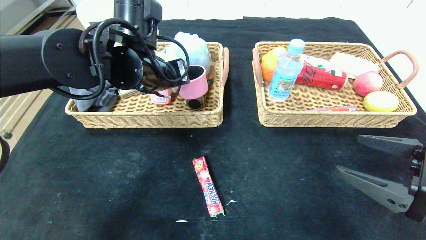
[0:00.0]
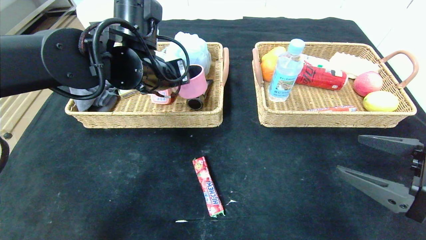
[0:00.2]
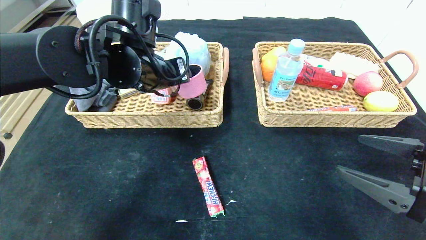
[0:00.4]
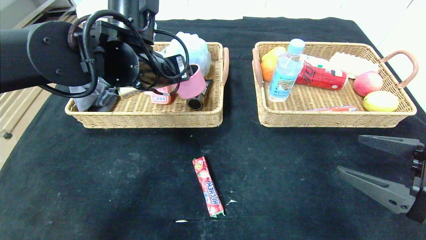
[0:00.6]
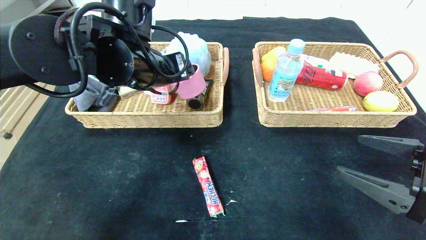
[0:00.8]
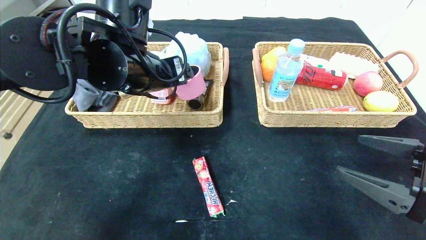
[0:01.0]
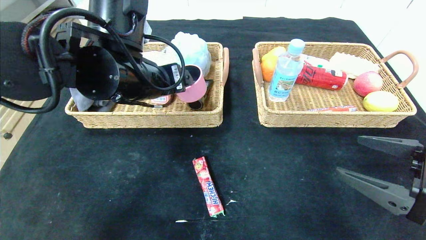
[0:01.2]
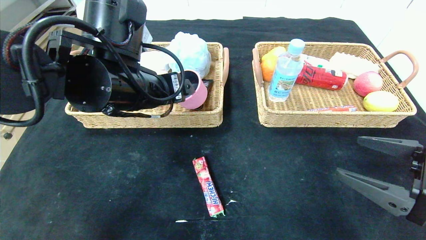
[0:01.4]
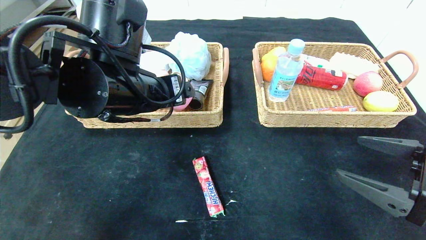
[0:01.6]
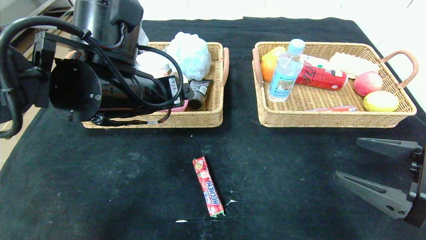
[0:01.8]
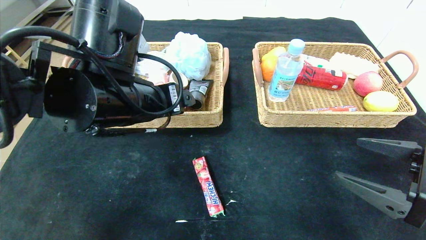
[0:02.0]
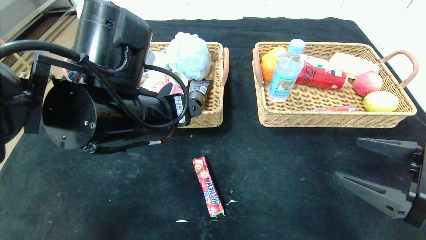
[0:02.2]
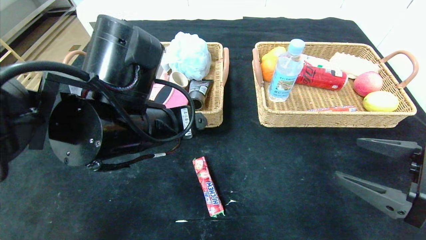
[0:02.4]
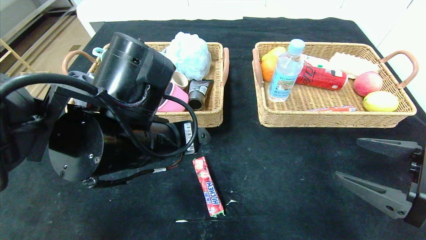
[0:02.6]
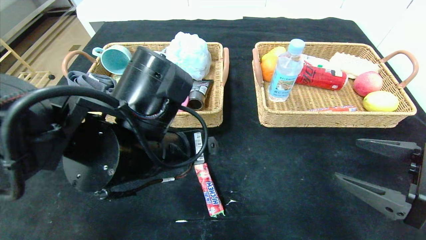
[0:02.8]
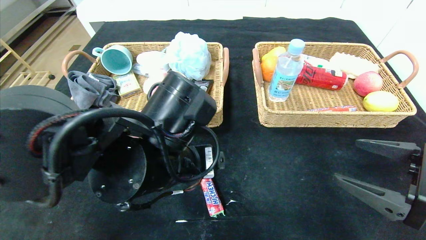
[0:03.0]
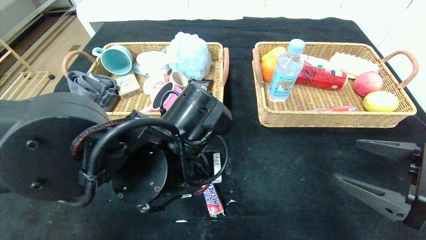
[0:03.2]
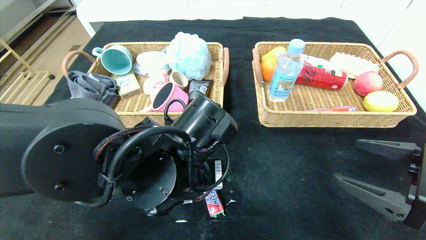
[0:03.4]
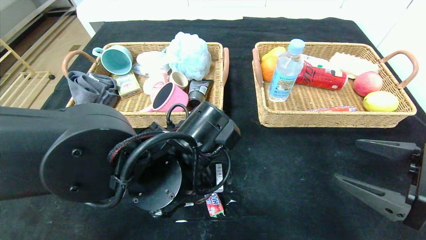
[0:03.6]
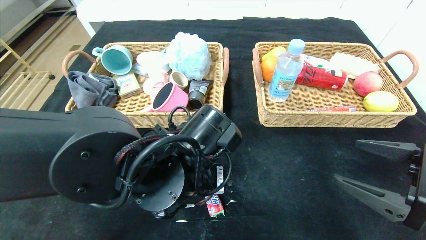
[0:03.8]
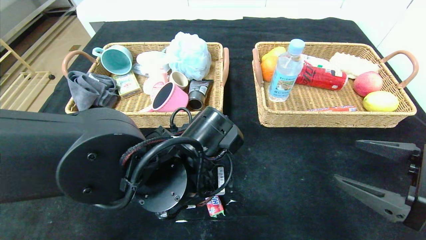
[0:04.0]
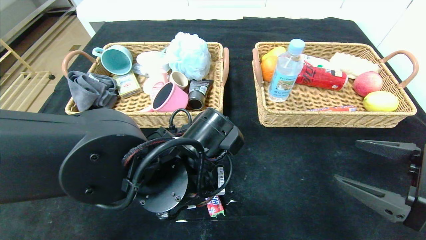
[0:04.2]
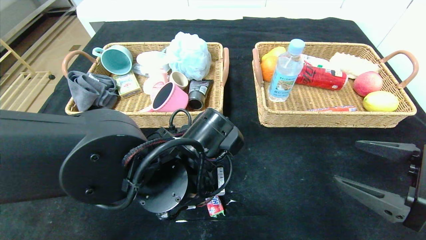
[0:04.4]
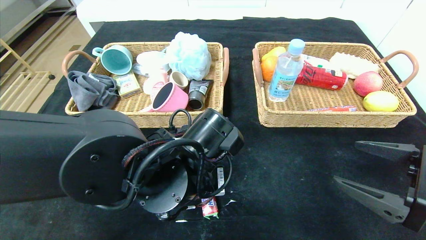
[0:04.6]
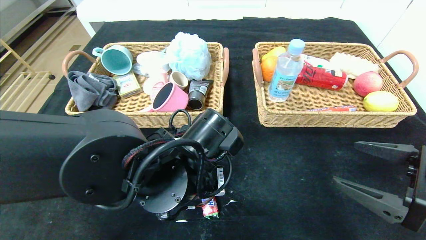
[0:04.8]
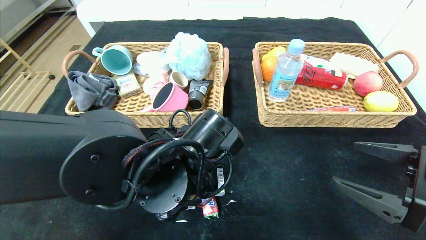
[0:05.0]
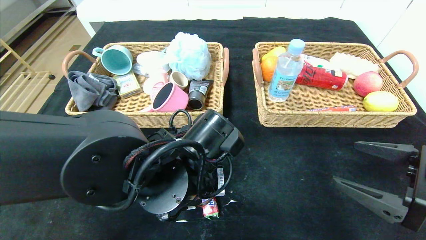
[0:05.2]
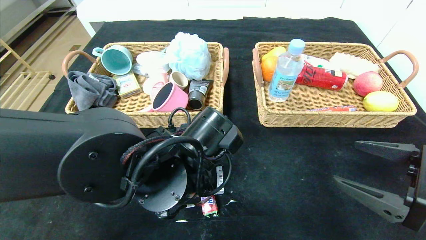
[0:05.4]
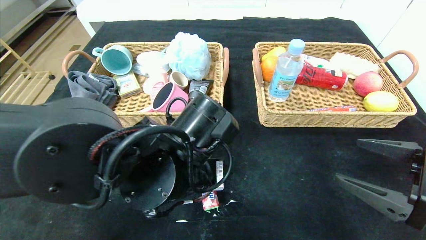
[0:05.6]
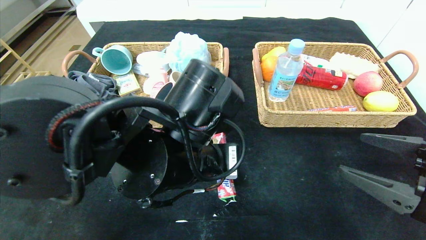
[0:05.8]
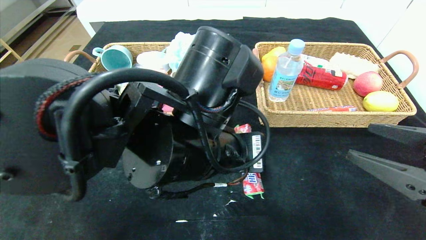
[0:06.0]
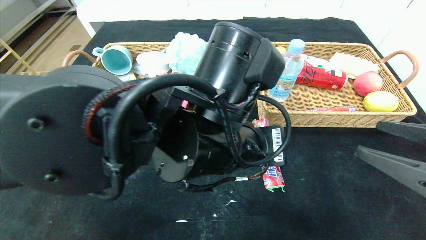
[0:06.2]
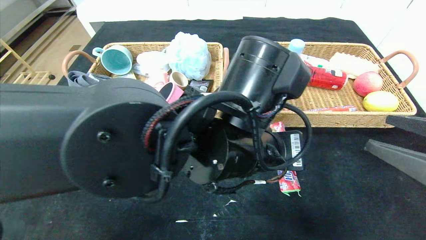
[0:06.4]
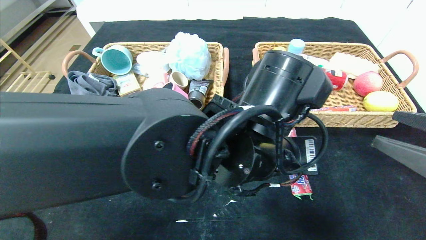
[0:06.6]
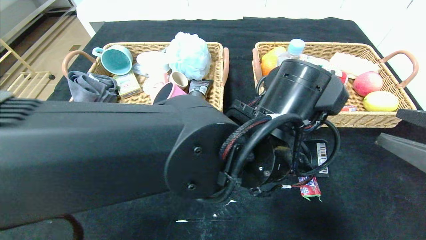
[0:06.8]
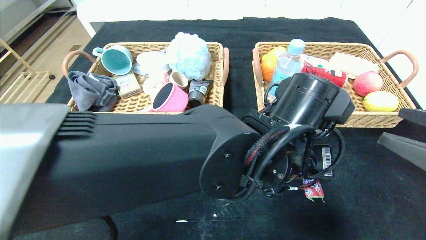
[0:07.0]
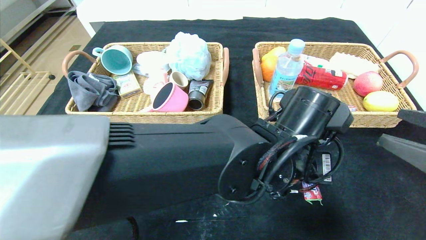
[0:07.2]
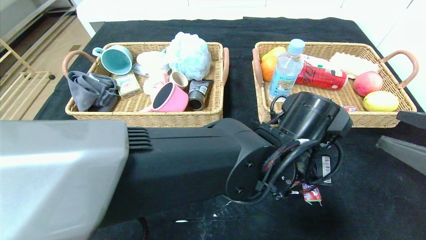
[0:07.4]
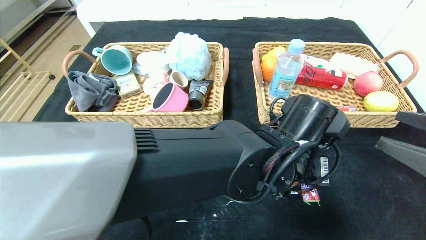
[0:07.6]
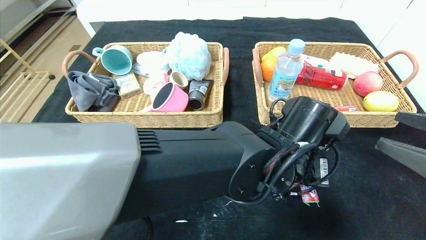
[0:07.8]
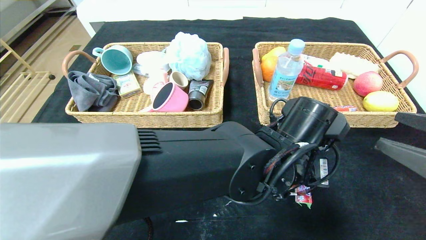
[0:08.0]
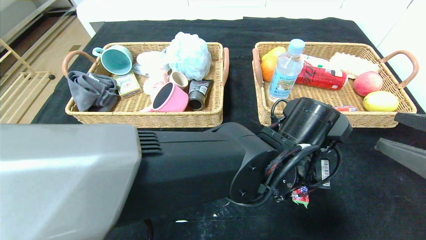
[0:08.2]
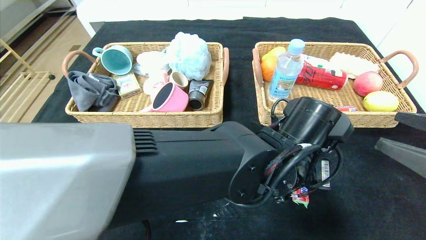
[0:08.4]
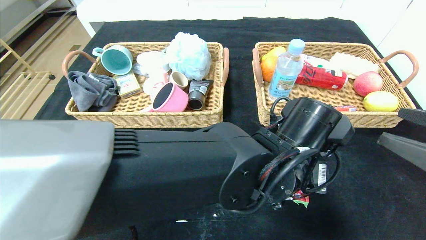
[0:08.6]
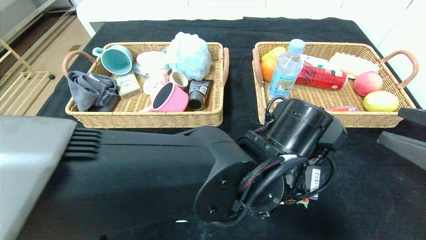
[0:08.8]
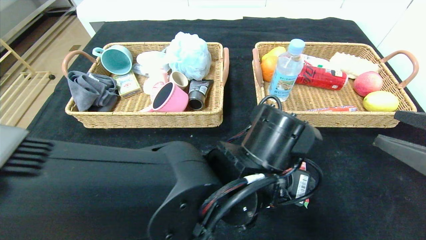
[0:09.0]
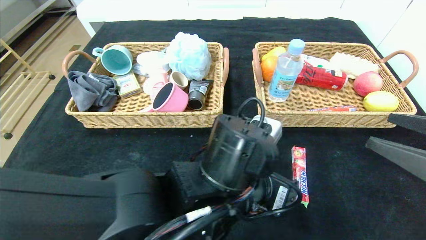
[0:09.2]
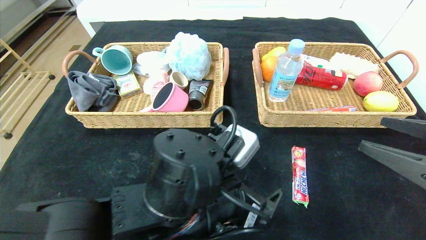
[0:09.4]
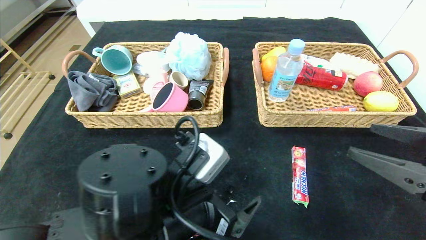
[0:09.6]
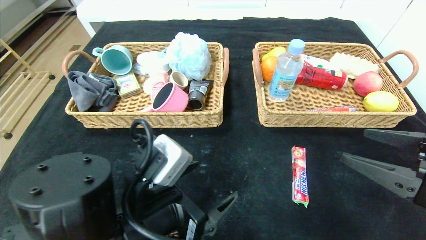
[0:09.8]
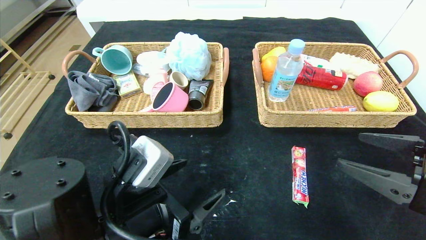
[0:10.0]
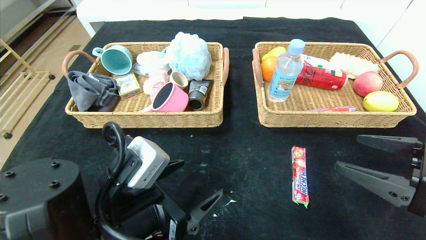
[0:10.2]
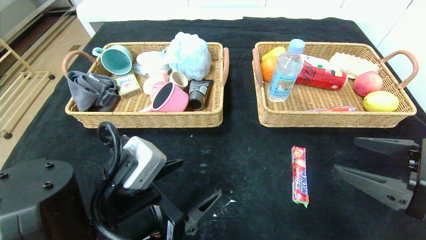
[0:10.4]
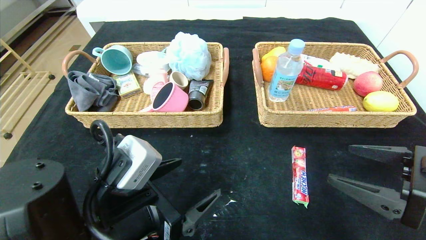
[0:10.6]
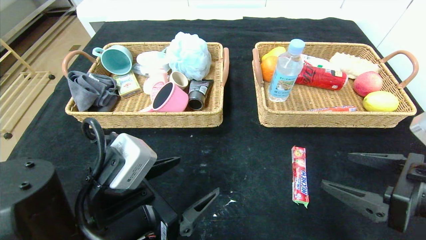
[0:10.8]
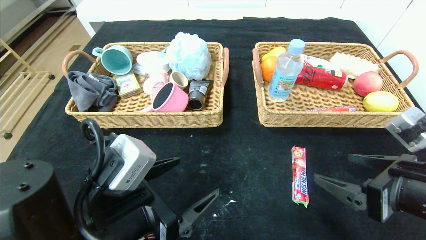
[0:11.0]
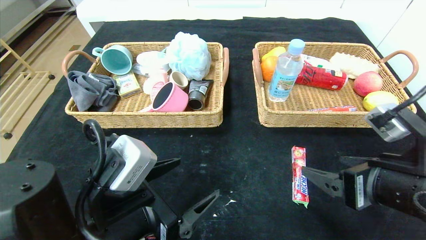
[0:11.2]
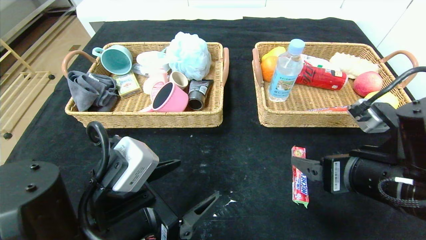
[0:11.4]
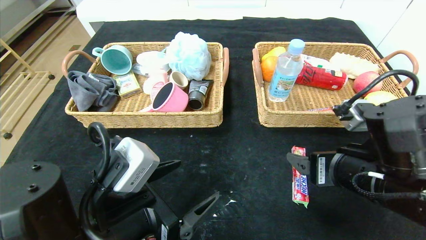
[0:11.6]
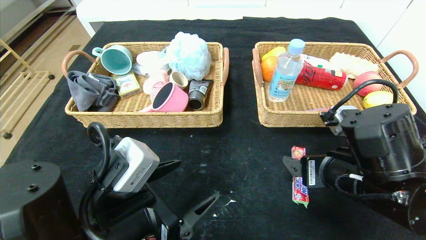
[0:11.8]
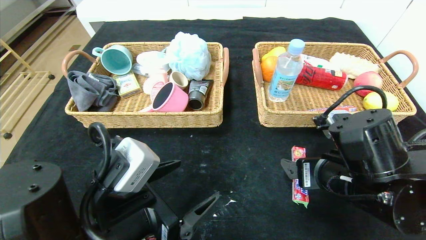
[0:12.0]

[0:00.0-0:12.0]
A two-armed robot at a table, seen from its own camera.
Step, 0:00.4 to 0:08.6: Place the fruit fudge in the center of the table.
0:00.0 to 0:01.6: The left gripper shifts approximately 10 cm backward, and opens its fingers.
0:01.6 to 0:03.0: The left gripper goes some 10 cm downward and backward.
0:03.0 to 0:04.4: The left gripper closes.
0:04.4 to 0:06.0: The left gripper is displaced upward by approximately 5 cm, and closes its fingers.
0:06.0 to 0:07.6: The left gripper moves to the right and downward, some 15 cm.
0:07.6 to 0:09.0: The left gripper ends up roughly 5 cm from where it was, and opens its fingers.
0:09.0 to 0:10.4: The left gripper is displaced to the left by about 20 cm.
0:10.4 to 0:12.0: The right gripper is displaced to the left and forward by about 10 cm.

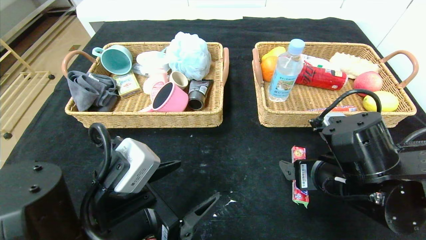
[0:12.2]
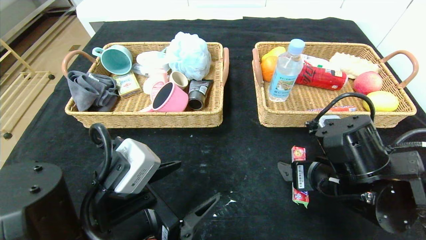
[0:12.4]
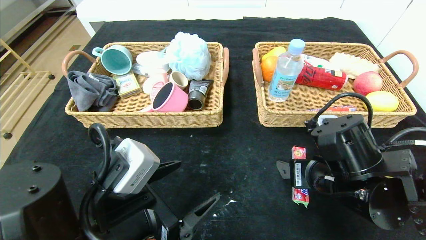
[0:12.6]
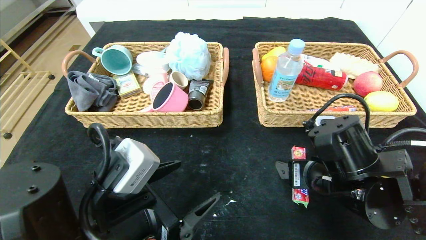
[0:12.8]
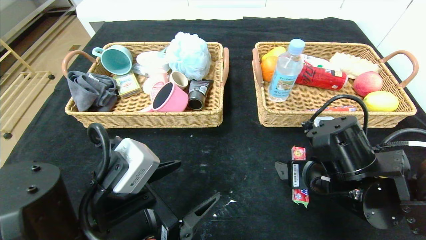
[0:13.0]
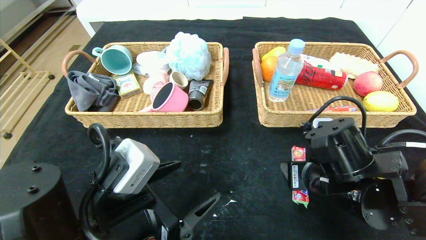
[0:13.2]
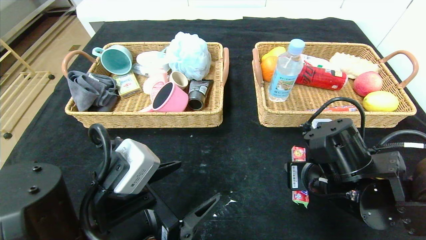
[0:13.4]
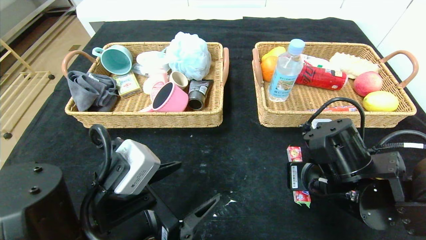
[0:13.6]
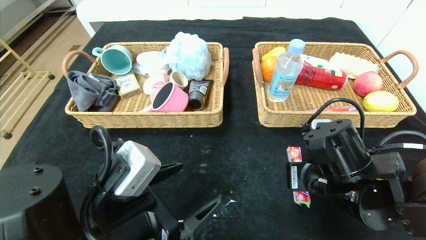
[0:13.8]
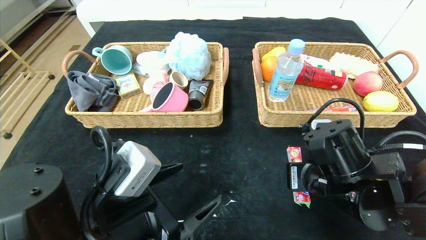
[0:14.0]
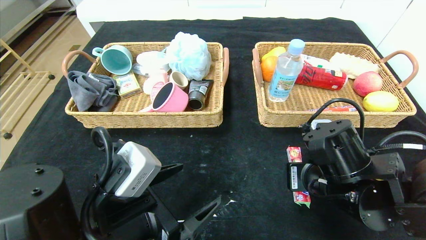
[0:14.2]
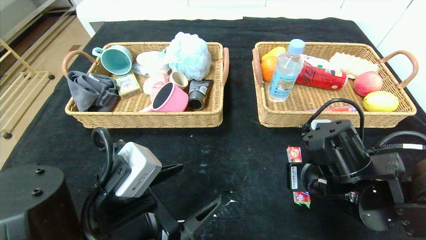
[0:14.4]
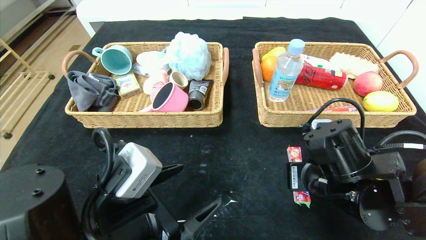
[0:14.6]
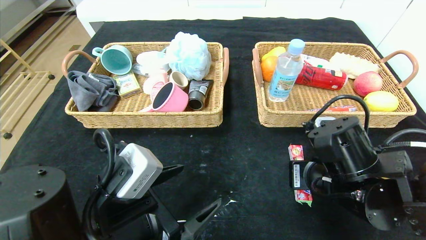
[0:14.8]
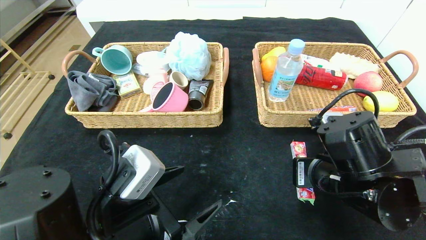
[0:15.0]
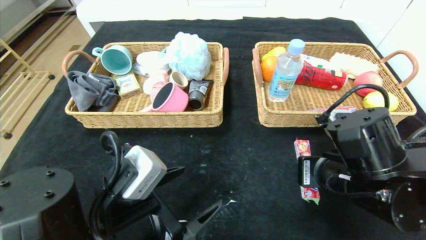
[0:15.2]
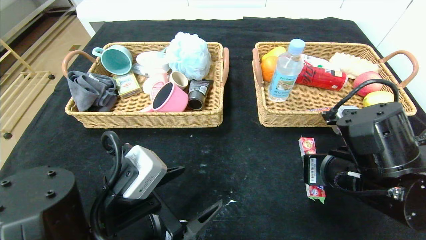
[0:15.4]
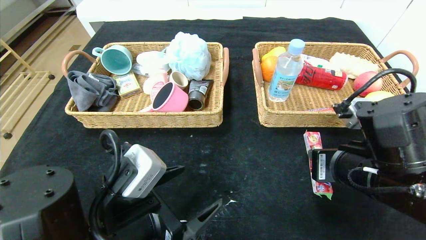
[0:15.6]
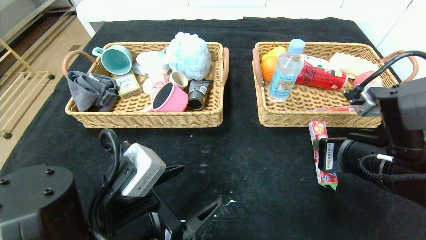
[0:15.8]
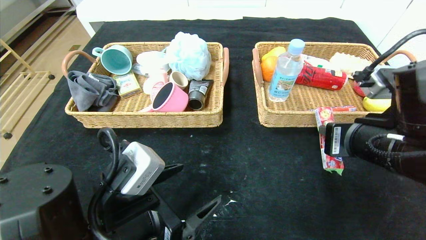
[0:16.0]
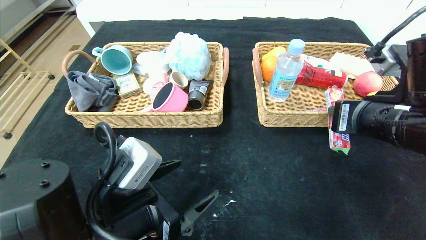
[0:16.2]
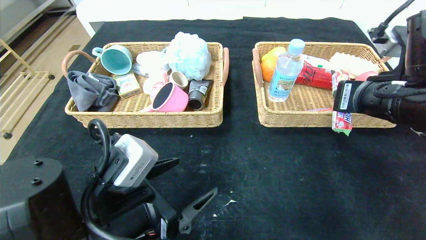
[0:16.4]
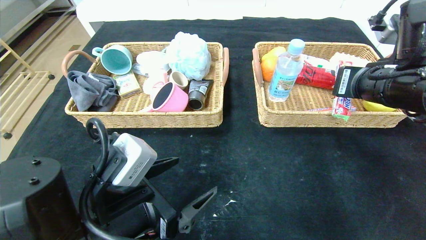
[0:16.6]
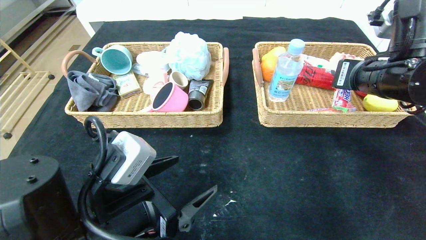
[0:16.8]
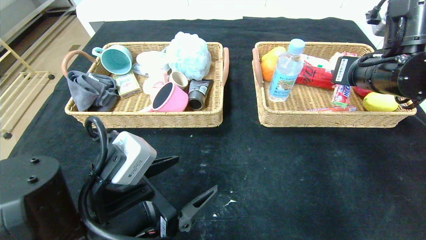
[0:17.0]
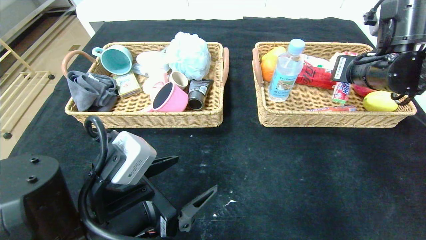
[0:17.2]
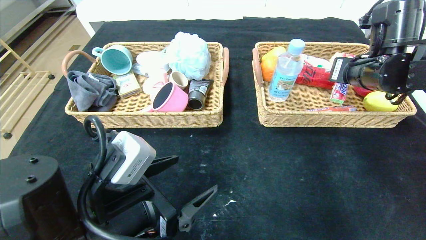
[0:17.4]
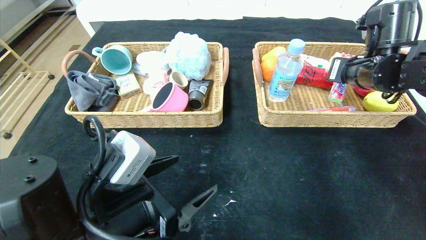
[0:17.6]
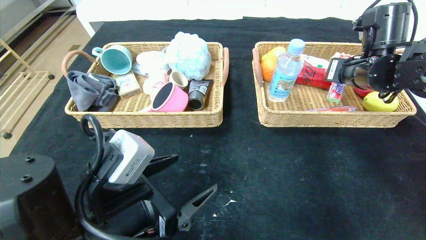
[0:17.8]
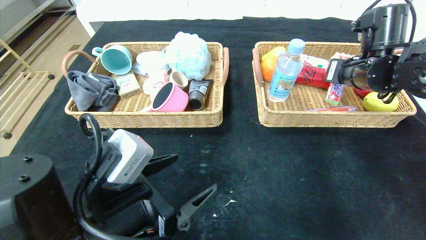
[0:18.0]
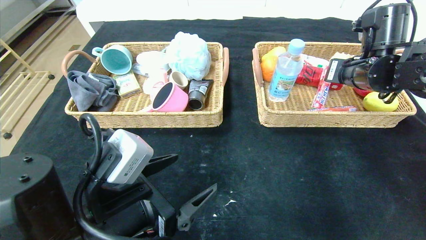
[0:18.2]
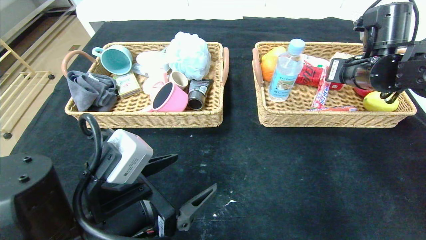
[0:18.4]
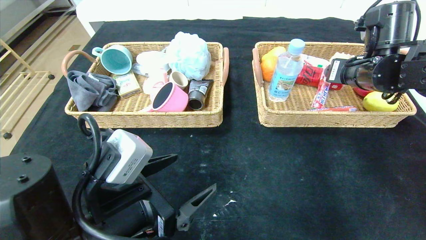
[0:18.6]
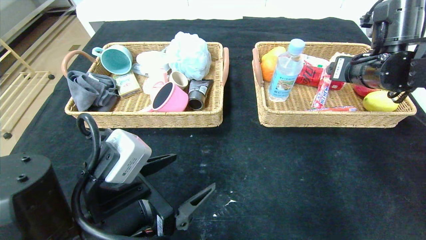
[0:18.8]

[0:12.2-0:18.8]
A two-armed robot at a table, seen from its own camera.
Step, 0:12.2 to 0:18.2: Grasp the fruit fudge and put it in the right basket.
0:12.2 to 0:13.8: The right gripper closes its fingers.
0:13.8 to 0:15.4: The grippers make only small movements.
0:15.4 to 0:17.2: The right gripper goes some 20 cm forward, upward and to the right.
0:17.2 to 0:18.8: The right gripper opens up.
